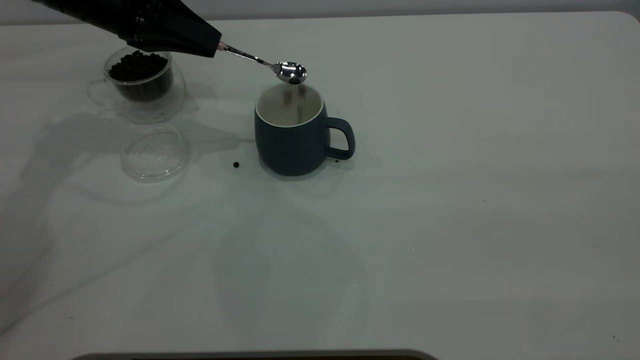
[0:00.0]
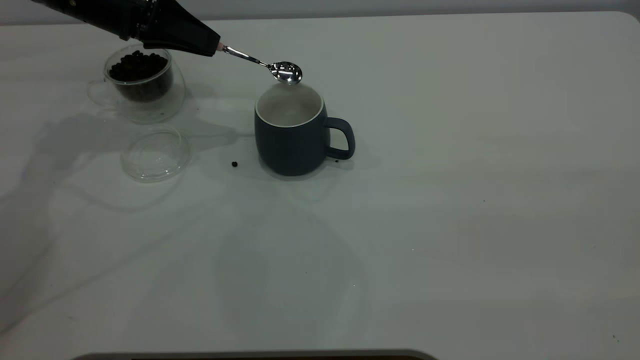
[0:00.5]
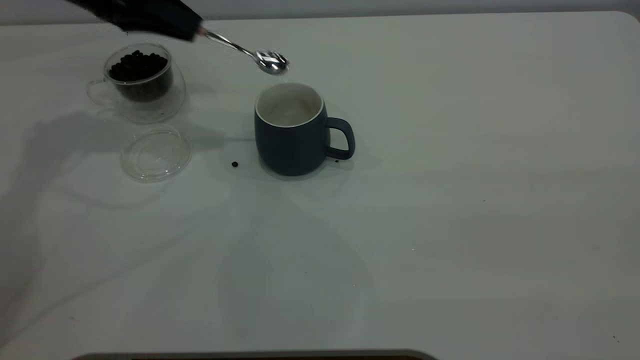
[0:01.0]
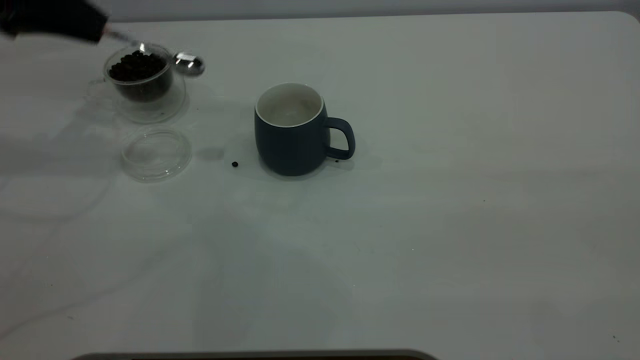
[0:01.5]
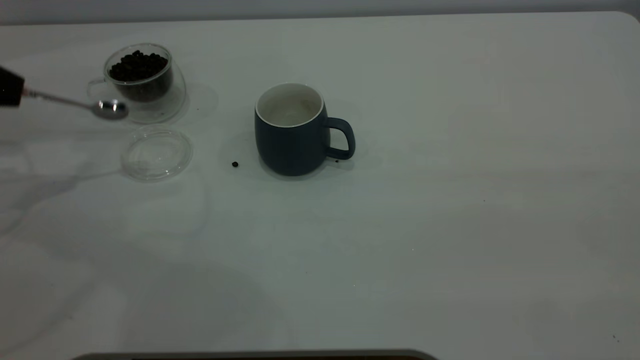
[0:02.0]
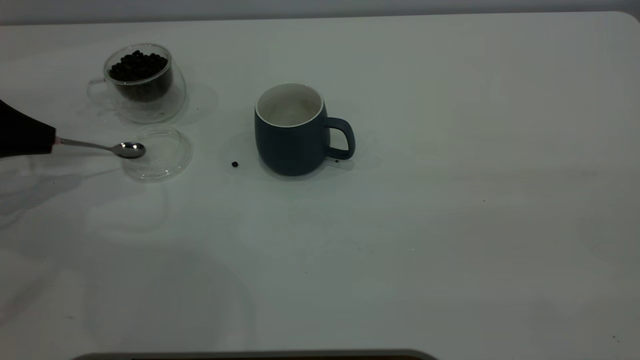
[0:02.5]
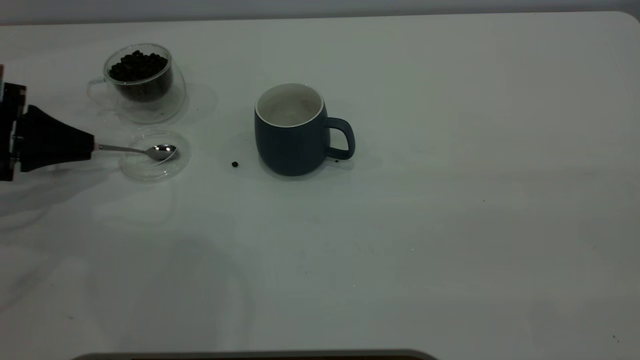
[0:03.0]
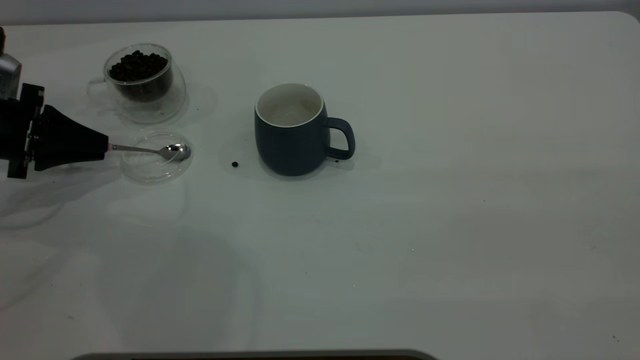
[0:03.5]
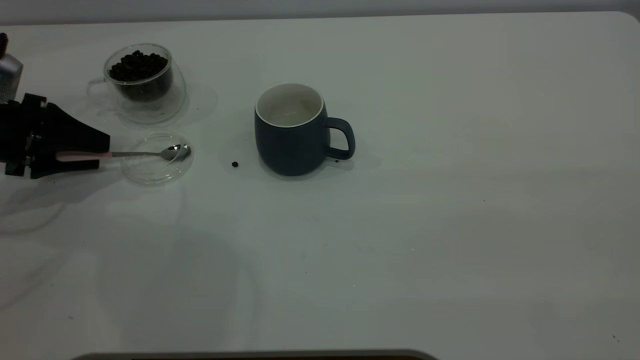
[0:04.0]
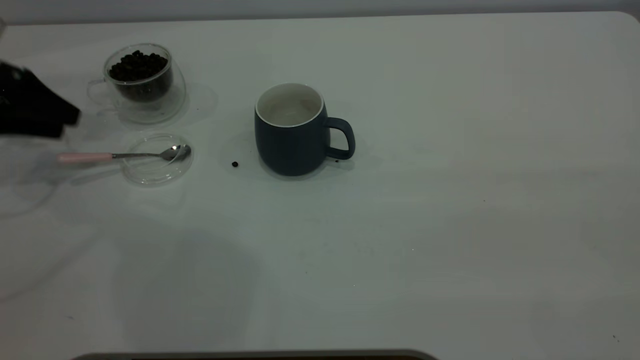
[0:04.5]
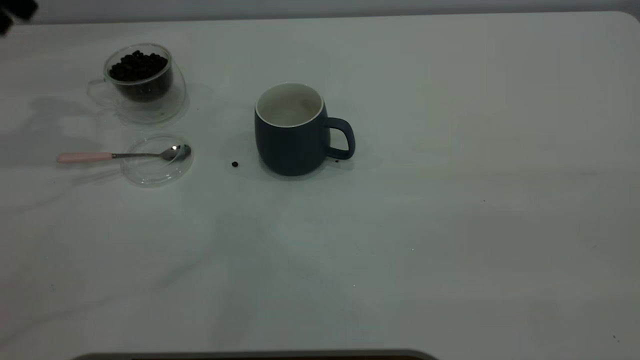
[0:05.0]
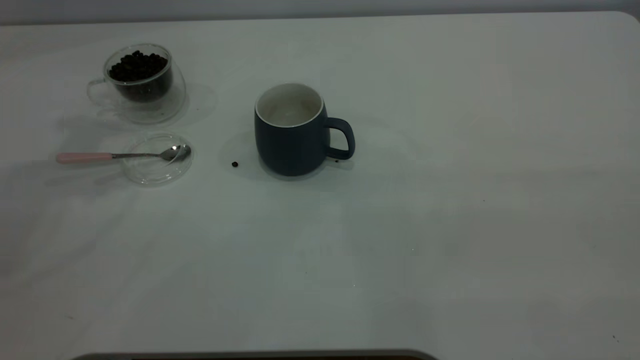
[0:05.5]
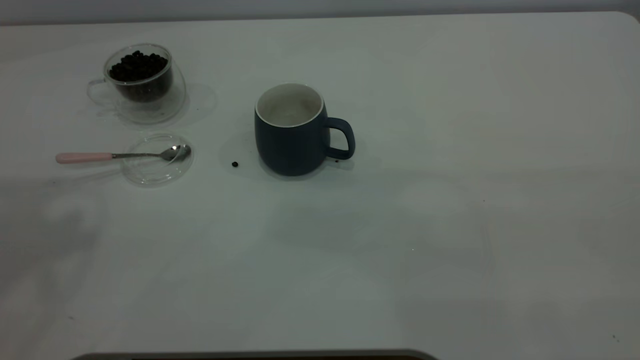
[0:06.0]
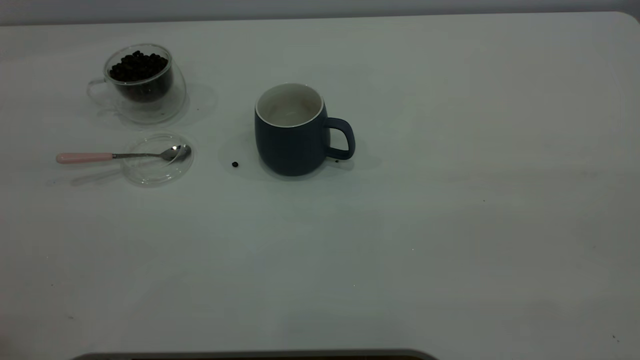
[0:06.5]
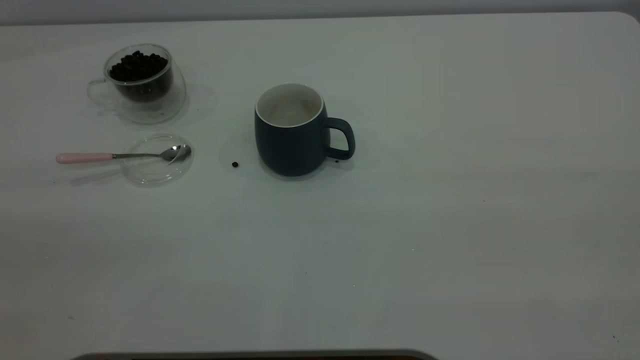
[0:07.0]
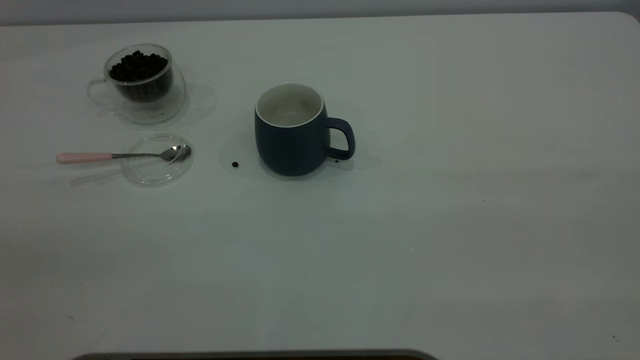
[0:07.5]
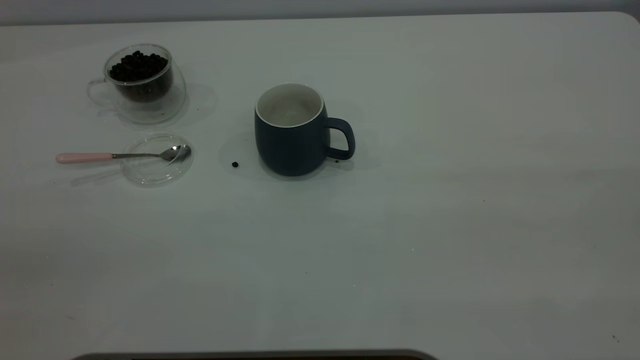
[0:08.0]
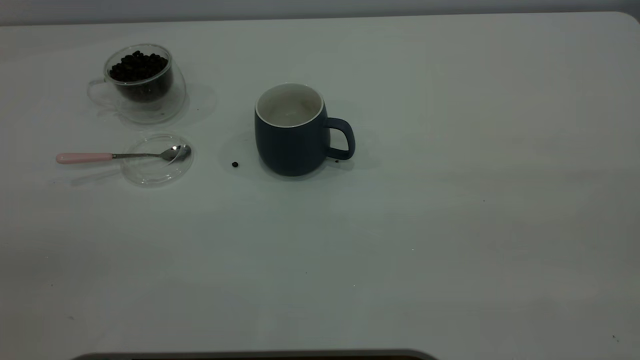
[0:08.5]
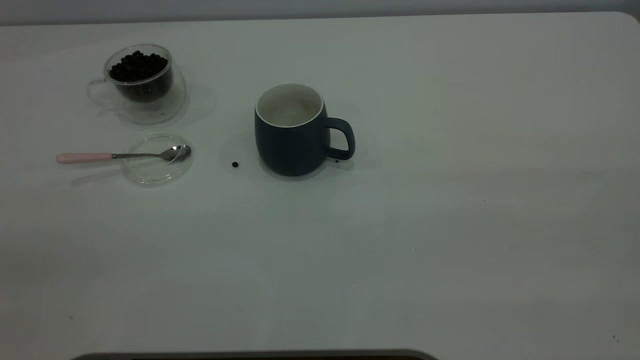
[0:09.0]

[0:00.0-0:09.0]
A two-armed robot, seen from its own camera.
Task of the whole recording: the right gripper place the grey cup in the center of the table, the left gripper take the pink spoon from the cup lid and scoop out the coffee beans from the coffee cup and put them into the grey cup, the left gripper put the spoon back into the cup lid.
Step, 0:01.5 to 0:04.5: Place the spoon back in its original place.
0:00.0 to 0:02.0: The left gripper is displaced to the left and backward by about 20 cm.
0:02.0 to 0:04.5: The left gripper travels forward by about 5 cm, and opens its fingers.
0:04.5 to 0:07.0: The left gripper moves backward and upward, roughly 50 cm.

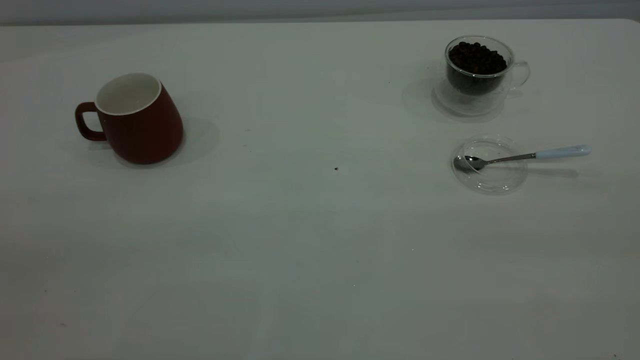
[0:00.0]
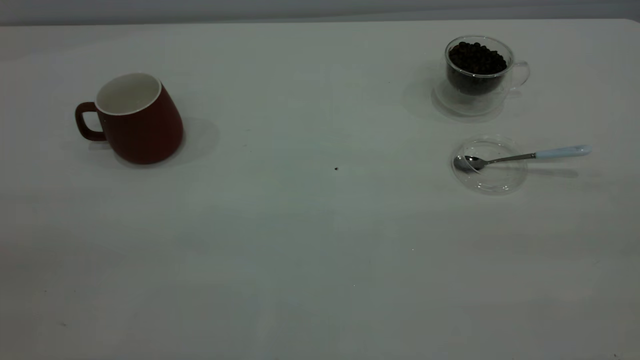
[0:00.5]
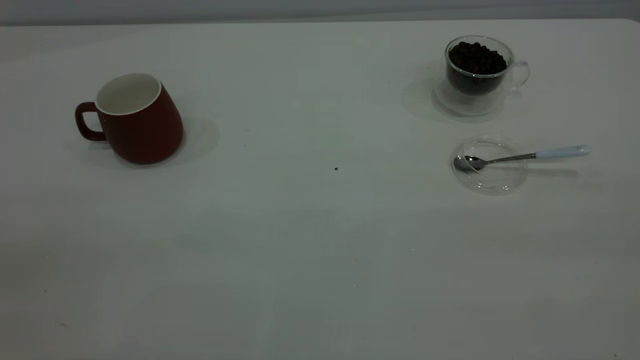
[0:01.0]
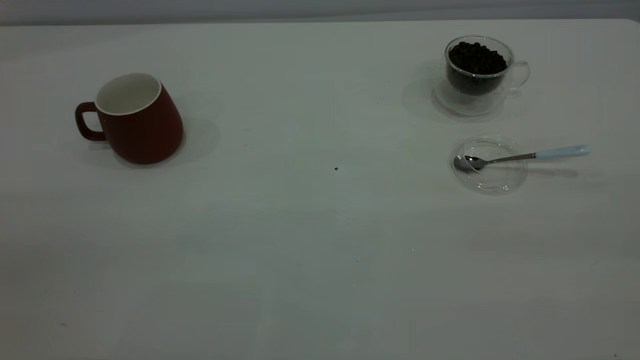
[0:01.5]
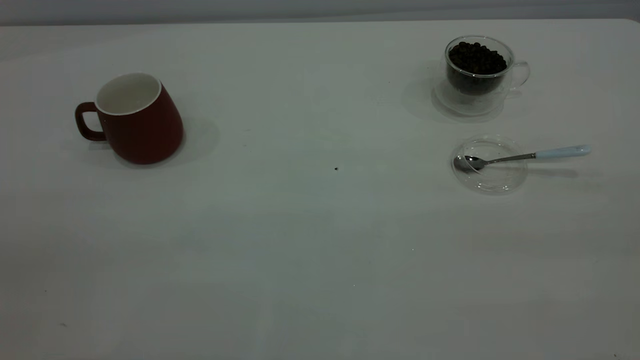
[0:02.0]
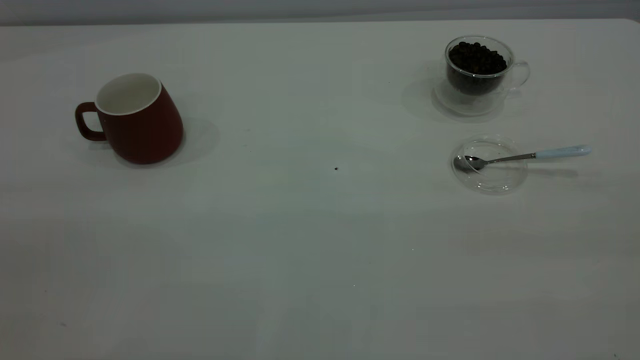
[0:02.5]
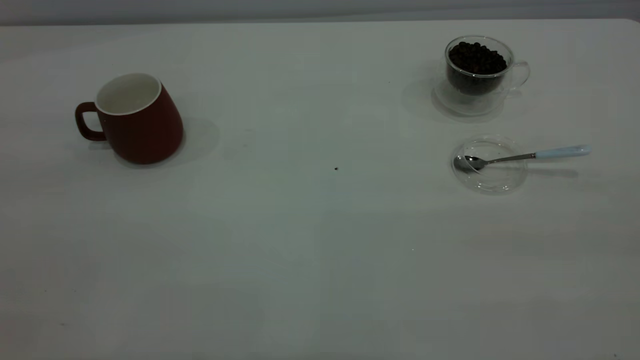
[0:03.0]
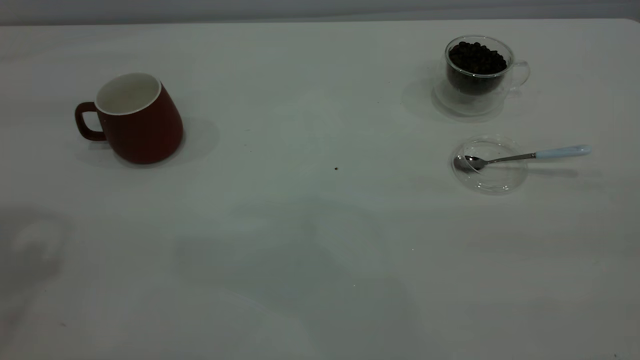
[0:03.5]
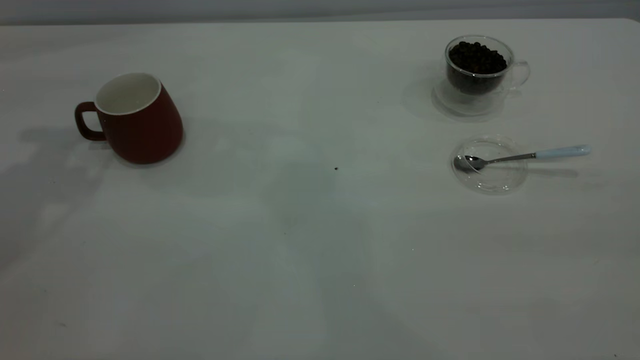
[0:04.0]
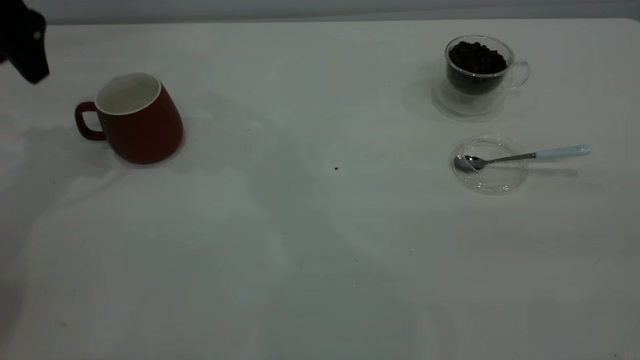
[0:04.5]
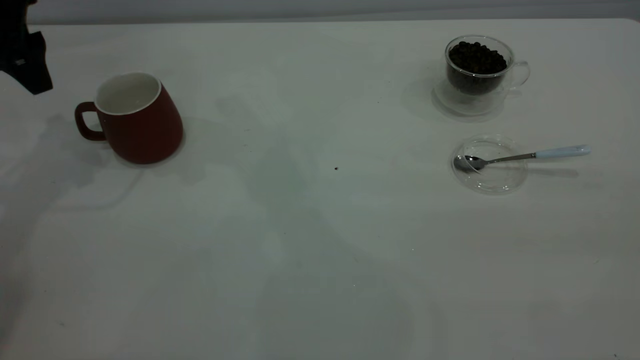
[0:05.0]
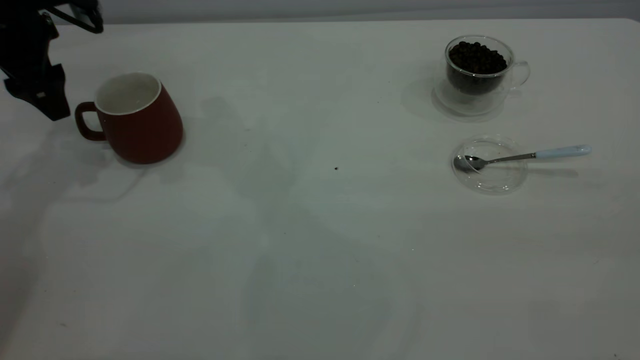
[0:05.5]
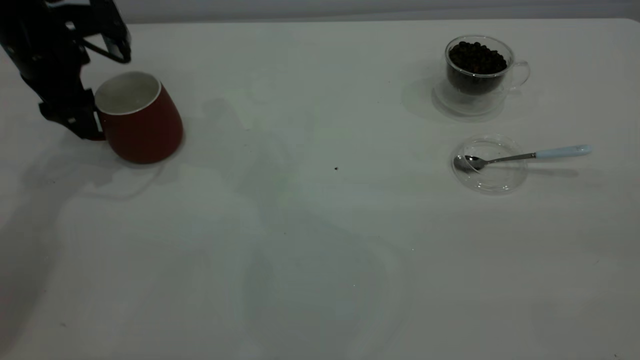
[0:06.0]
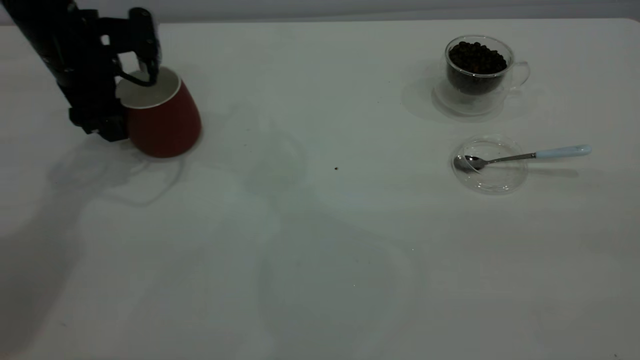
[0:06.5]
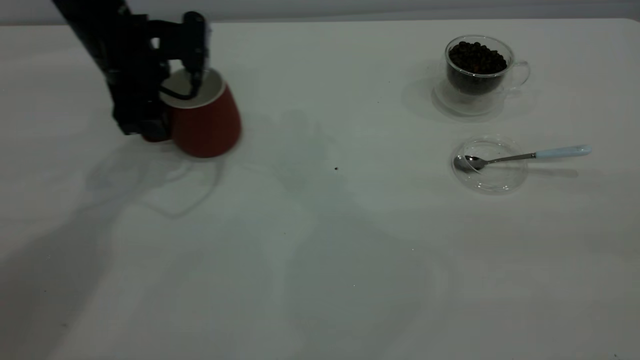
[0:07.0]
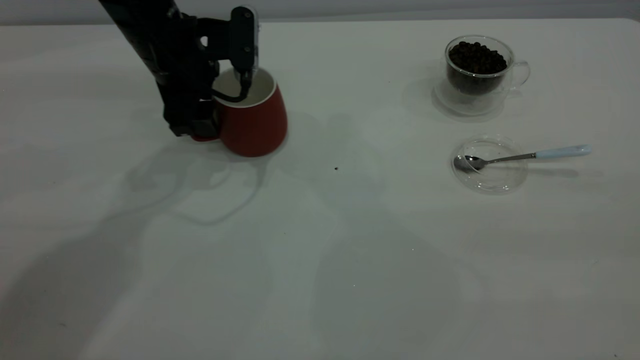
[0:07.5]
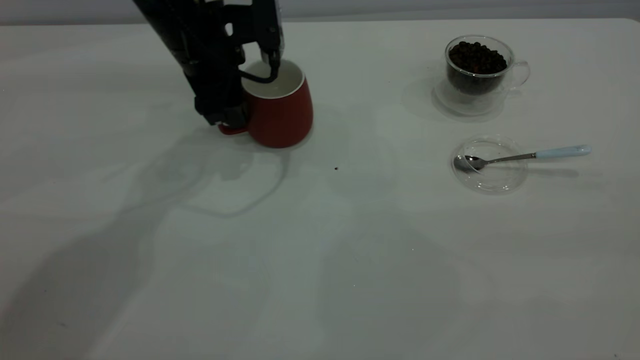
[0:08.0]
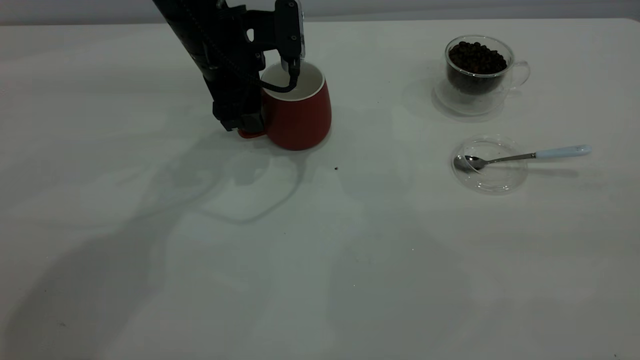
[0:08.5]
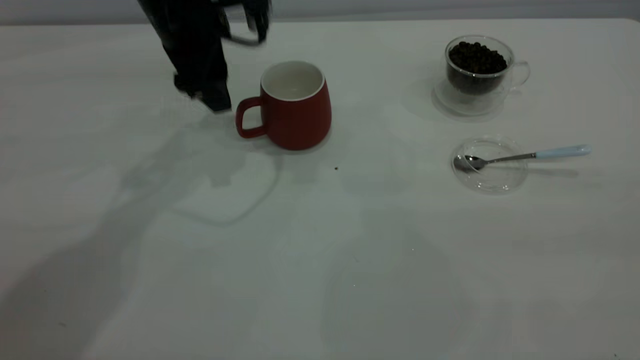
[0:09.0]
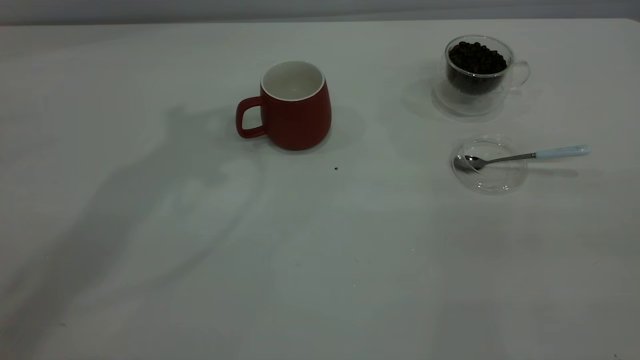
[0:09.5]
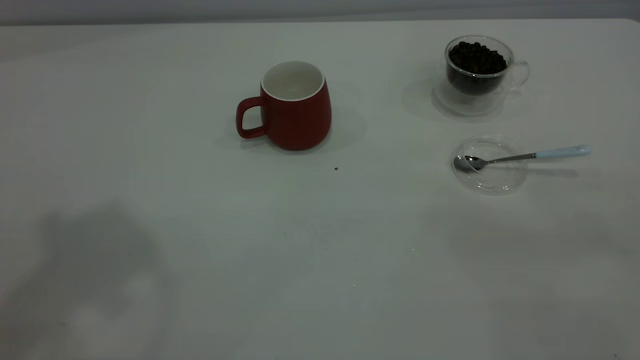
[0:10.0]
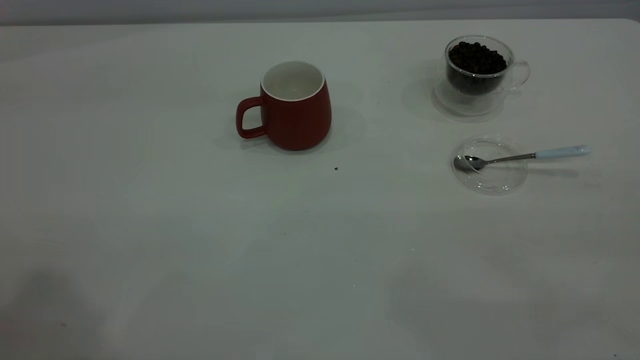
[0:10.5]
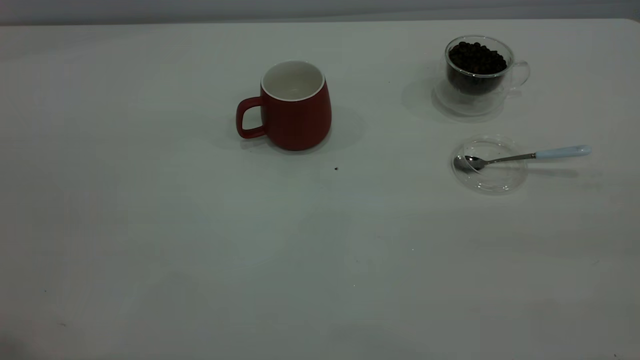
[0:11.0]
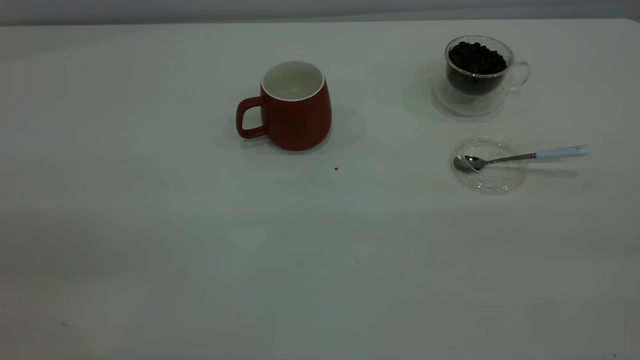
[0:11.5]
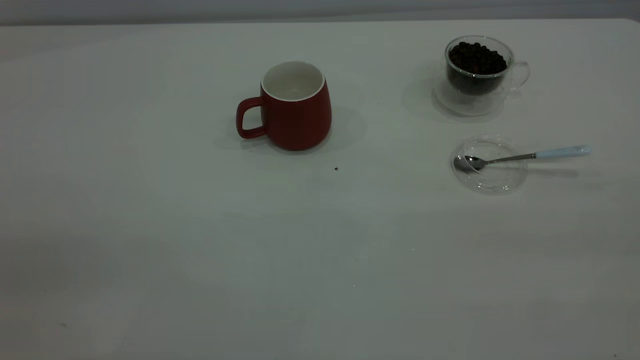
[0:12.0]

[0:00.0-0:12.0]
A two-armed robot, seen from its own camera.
Task of the whole recording: the left gripper place the red cup in the center of the table, the right gripper take the blue spoon from the cup lid and scoop out the coffee beans from the coffee cup and put them into the red cup, the right gripper put the spoon back into the cup lid.
Step, 0:00.0 to 0:09.0: Move the cup to the center of view.
0:00.0 to 0:02.0: Both grippers stay about where they are.
0:04.0 to 0:06.0: The left gripper is displaced downward by approximately 15 cm.
0:06.0 to 0:08.0: The left gripper heads to the right, covering some 15 cm.
0:08.0 to 0:10.0: The left gripper heads upward and backward, covering about 50 cm.
